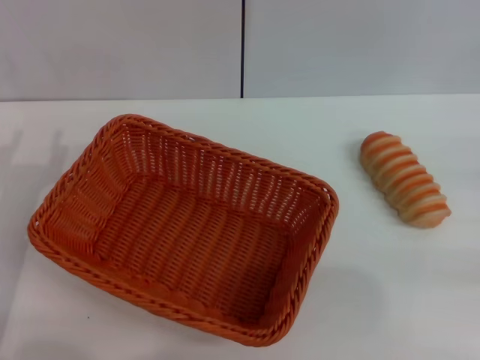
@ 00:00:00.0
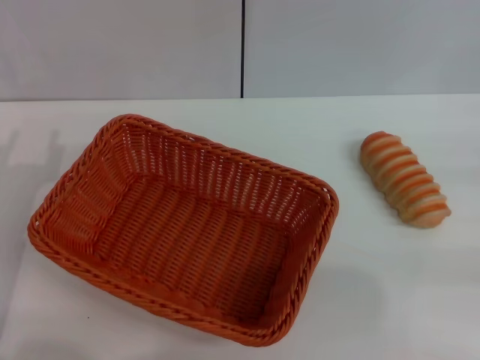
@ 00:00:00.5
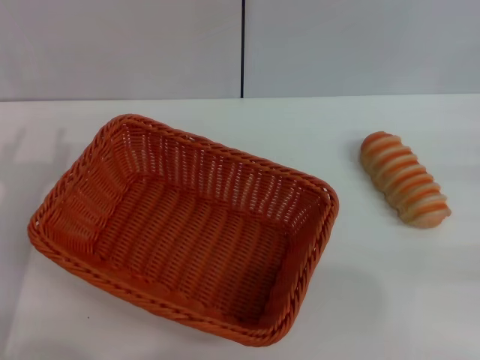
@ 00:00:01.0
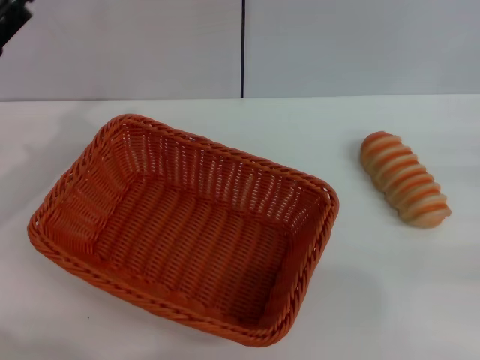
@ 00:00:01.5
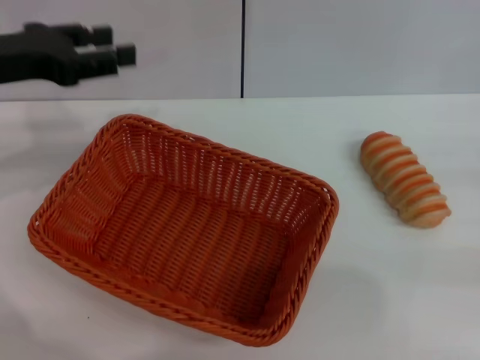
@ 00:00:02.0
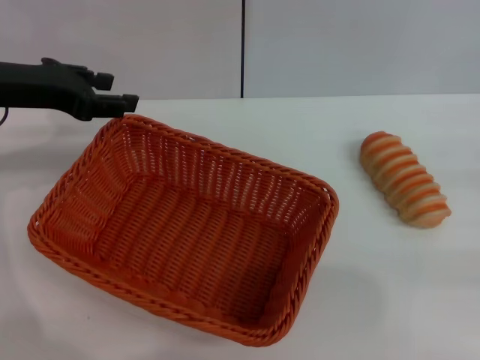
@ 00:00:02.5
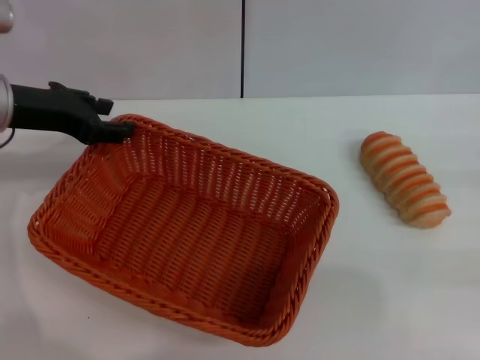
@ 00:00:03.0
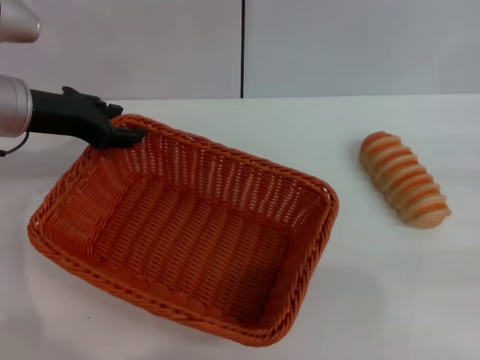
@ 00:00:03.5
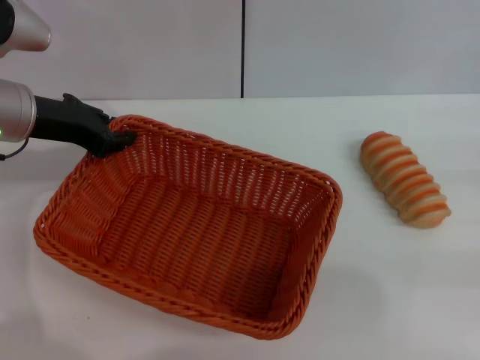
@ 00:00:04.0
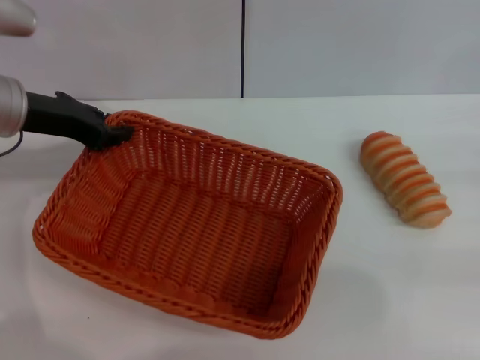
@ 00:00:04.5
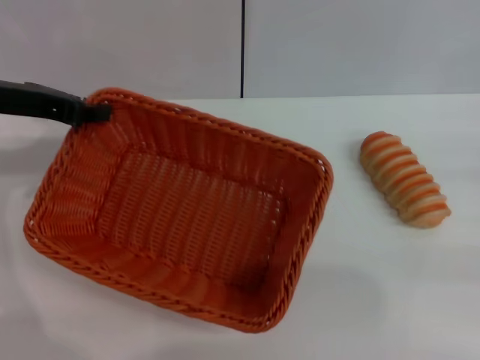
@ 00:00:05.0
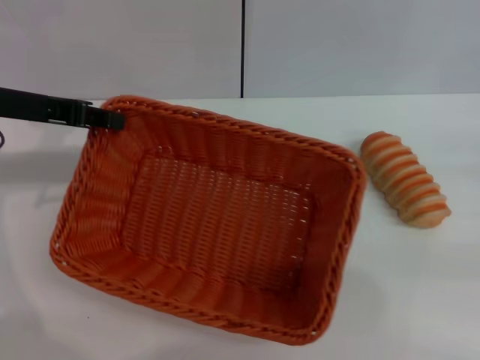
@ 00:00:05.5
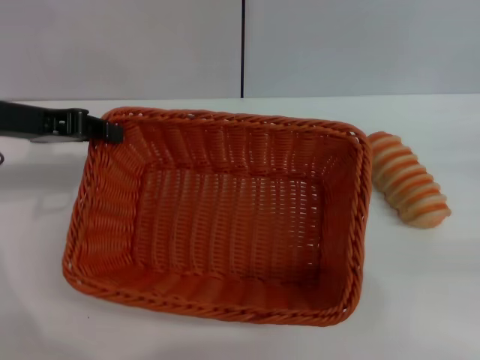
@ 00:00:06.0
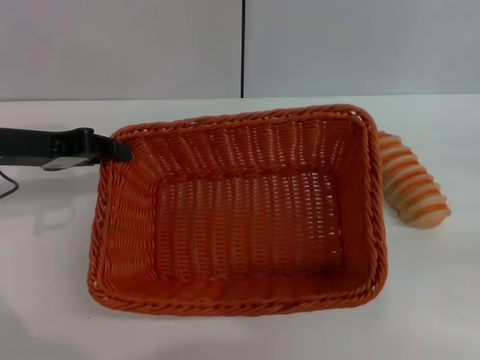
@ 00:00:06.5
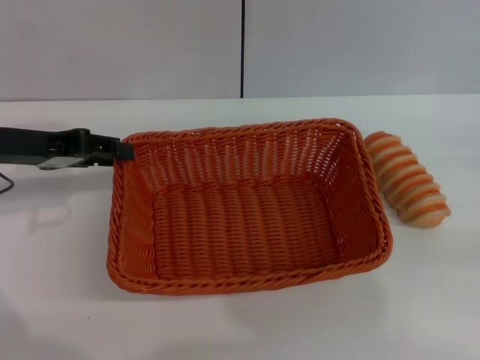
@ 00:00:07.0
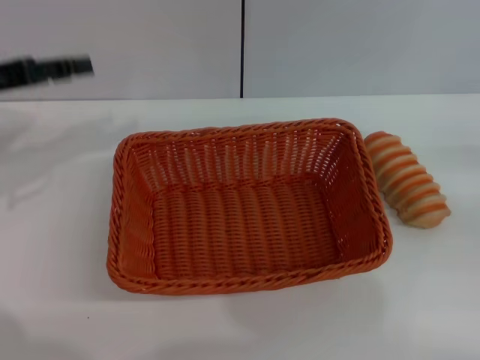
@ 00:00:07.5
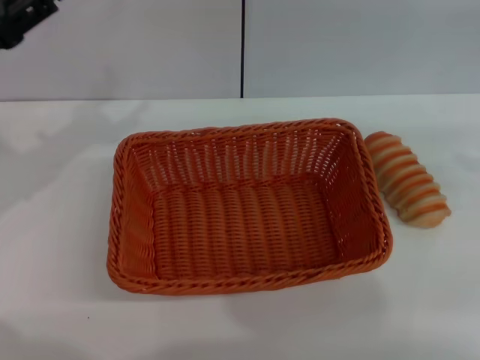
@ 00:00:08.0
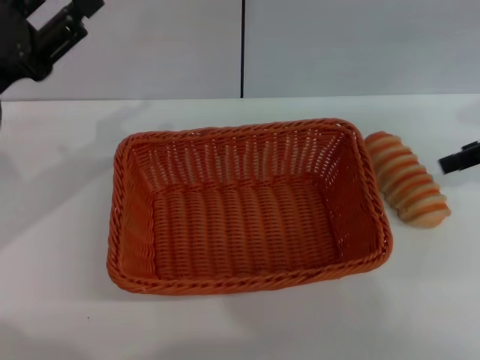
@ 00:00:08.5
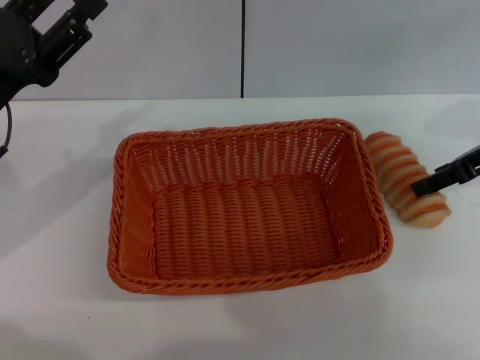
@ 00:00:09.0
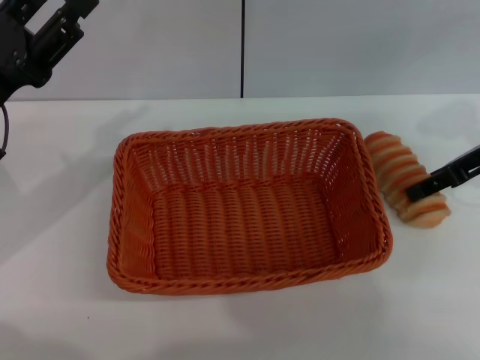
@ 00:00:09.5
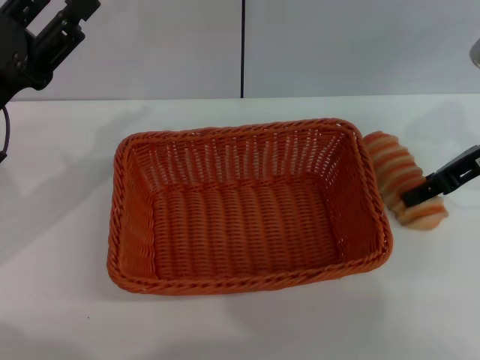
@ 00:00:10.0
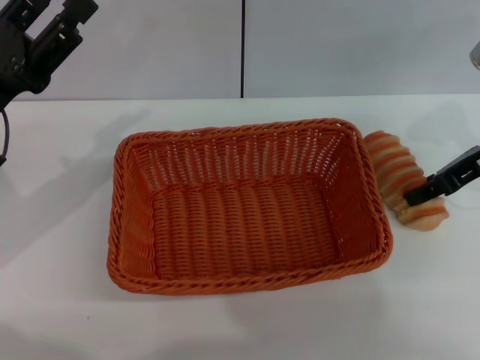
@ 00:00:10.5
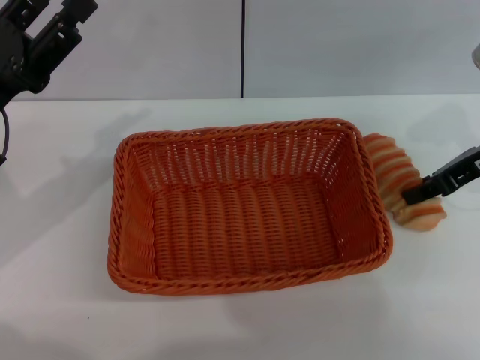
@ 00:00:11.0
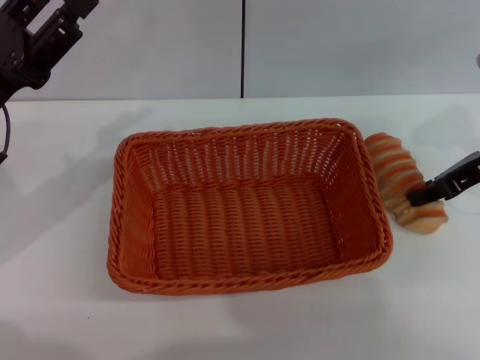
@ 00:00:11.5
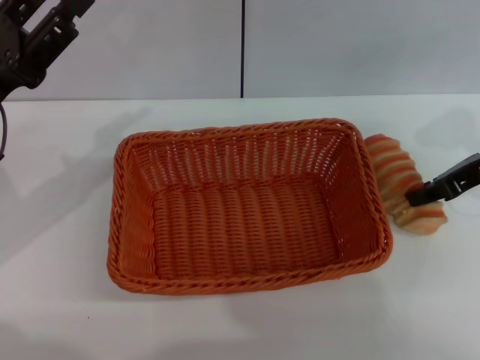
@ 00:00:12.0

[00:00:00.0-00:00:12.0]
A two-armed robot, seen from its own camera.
Step, 00:00:00.0 to 00:00:05.5: Pick up the light basket with the left gripper.
Step, 00:00:06.0 to 00:00:07.5: Place the light basket in the center of view with the left gripper.
00:00:00.0 to 00:00:02.0: The left gripper travels upward and forward by some 20 cm.
00:00:02.0 to 00:00:04.0: The left gripper travels downward by approximately 5 cm, and closes.
00:00:04.0 to 00:00:06.0: The left gripper changes place by roughly 5 cm.
00:00:06.0 to 00:00:08.0: The left gripper opens. The right gripper shifts about 15 cm upward and forward.
00:00:08.0 to 00:00:10.0: The right gripper moves to the left, roughly 15 cm. The left gripper changes place by some 5 cm.
00:00:10.0 to 00:00:12.0: The right gripper closes.

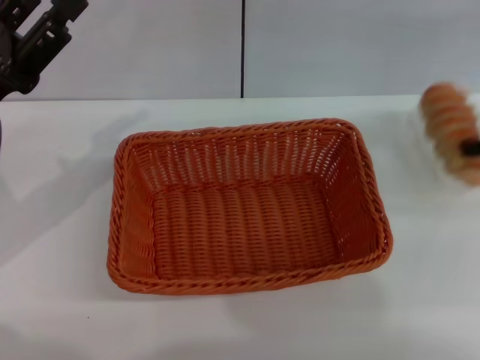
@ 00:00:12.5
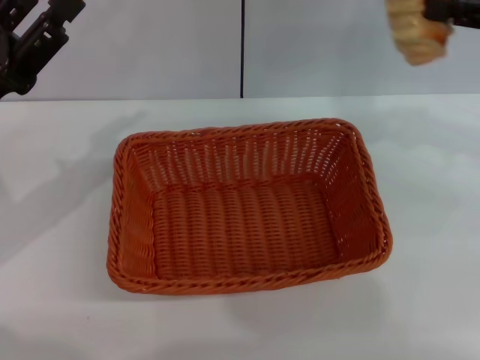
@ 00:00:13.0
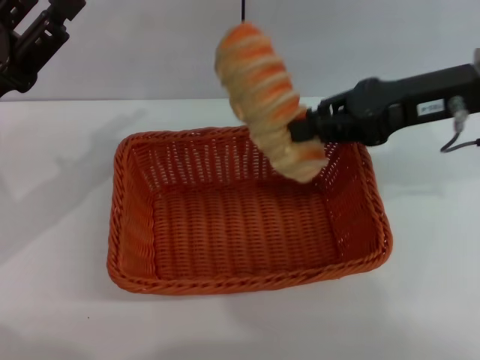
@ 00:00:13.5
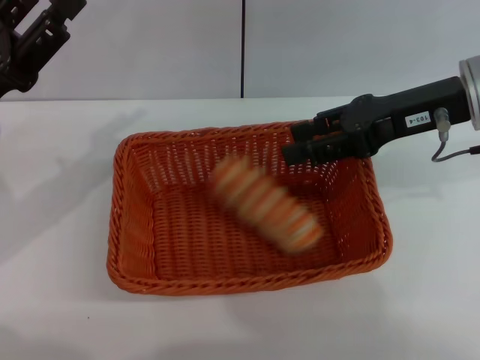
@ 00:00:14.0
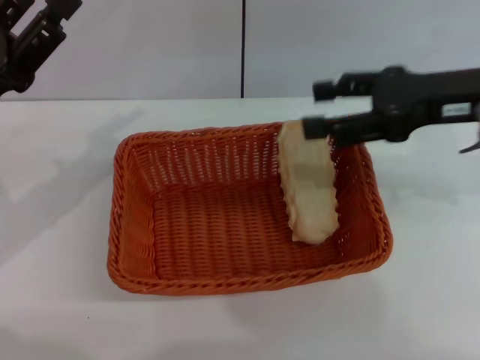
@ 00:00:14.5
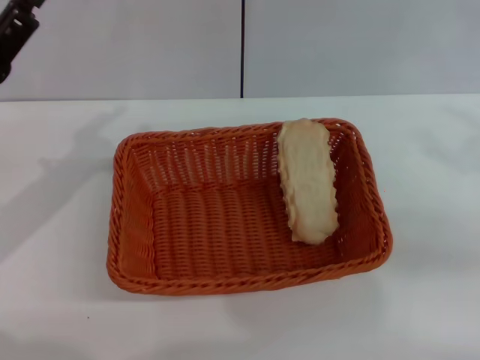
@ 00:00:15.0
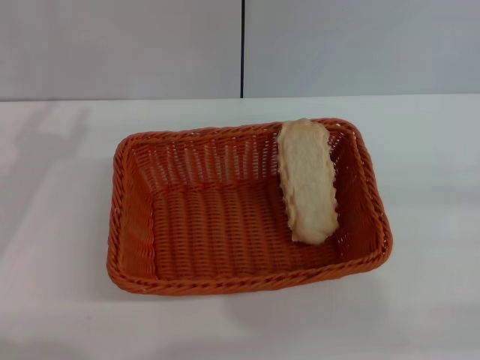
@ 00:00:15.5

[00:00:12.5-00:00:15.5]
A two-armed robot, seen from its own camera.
Step, 00:00:13.0 to 00:00:14.5: Place the long bread into the light basket with the right gripper.
00:00:12.5 to 00:00:14.0: The right gripper shifts about 15 cm to the left, and opens its fingers.
00:00:14.0 to 00:00:15.5: The right gripper heads to the right, backward and downward, covering about 25 cm, and opens.
